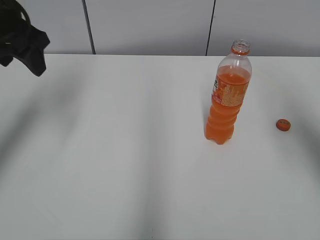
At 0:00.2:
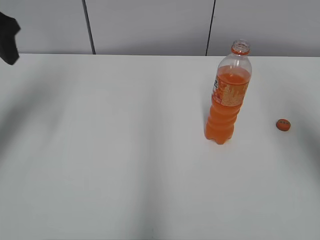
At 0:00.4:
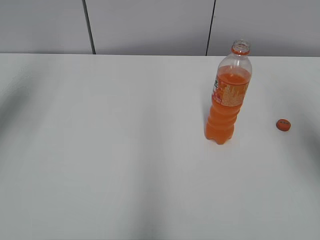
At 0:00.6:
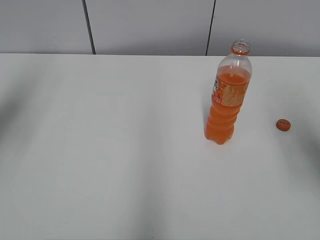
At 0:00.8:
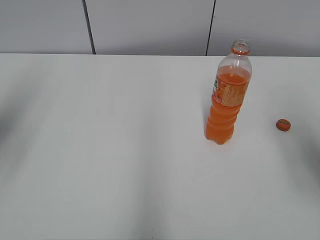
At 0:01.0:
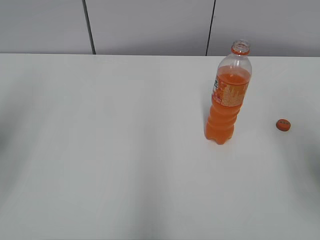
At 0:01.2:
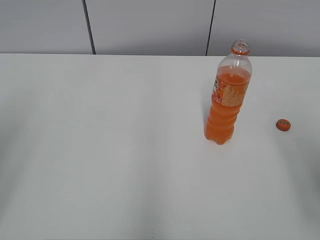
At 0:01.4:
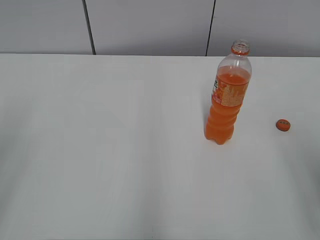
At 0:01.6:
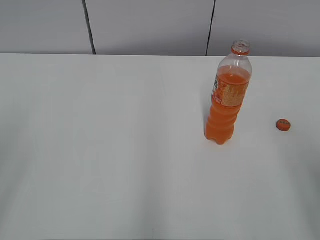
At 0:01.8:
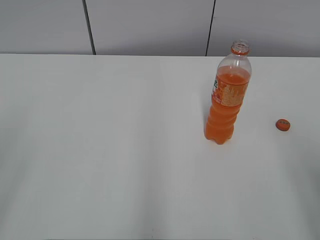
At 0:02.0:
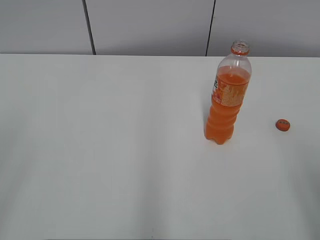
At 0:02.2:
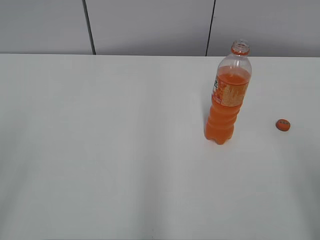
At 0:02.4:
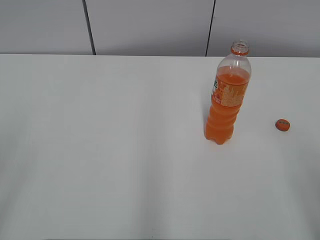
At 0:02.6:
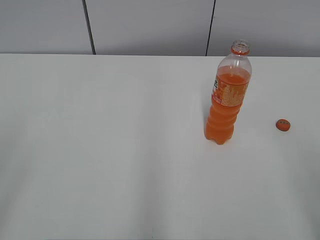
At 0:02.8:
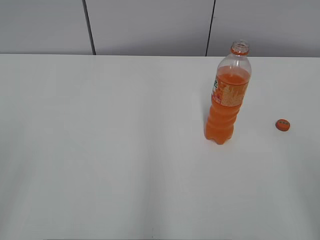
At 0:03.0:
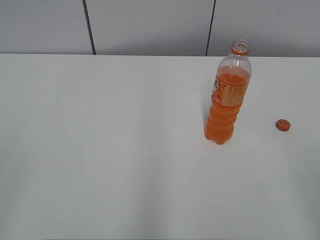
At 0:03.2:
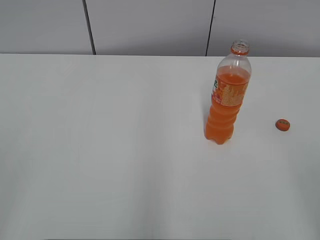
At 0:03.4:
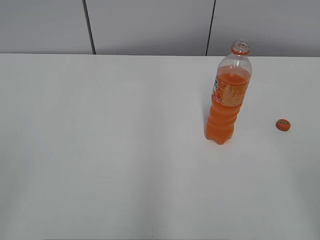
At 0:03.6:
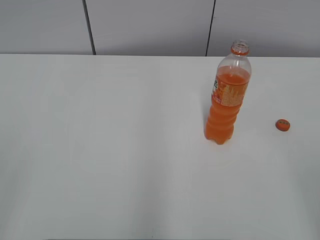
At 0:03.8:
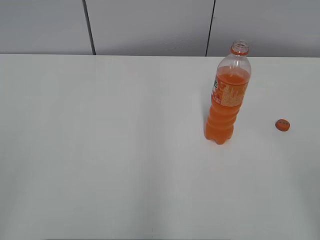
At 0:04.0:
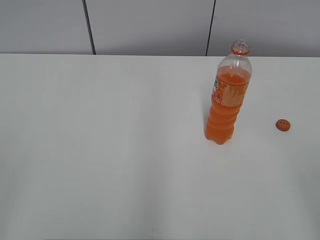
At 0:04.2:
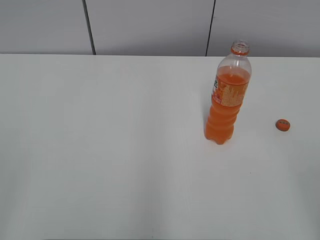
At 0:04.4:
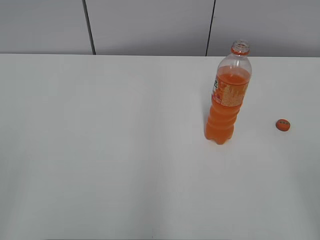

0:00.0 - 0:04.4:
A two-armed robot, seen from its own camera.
0:00.0 - 0:01.4: The left gripper goes some 25 cm backward; the right gripper shifts roughly 15 cm backward and downward.
